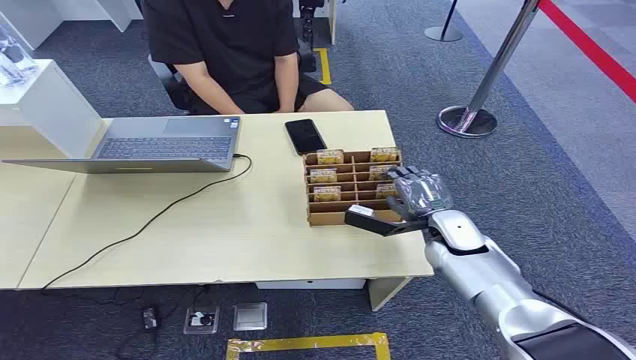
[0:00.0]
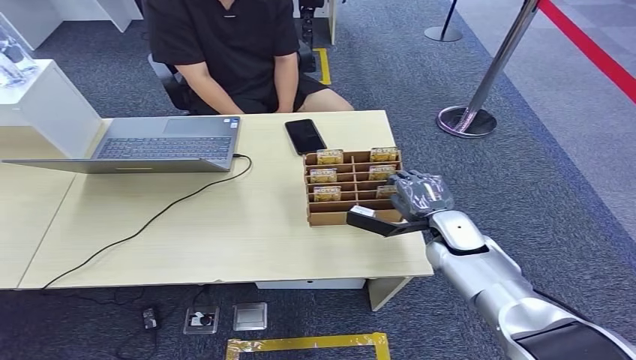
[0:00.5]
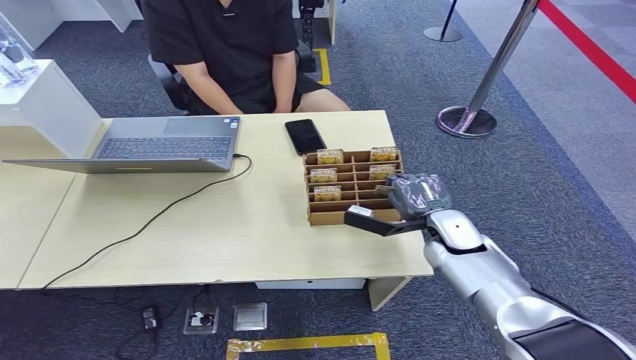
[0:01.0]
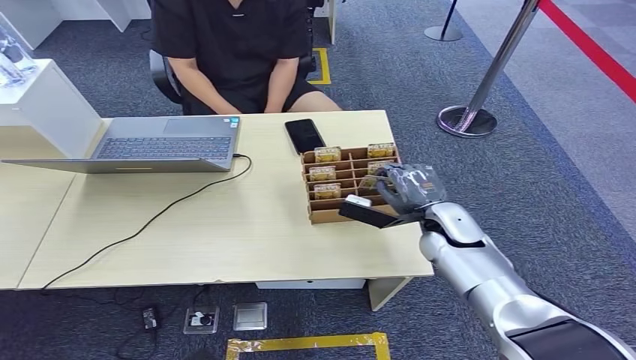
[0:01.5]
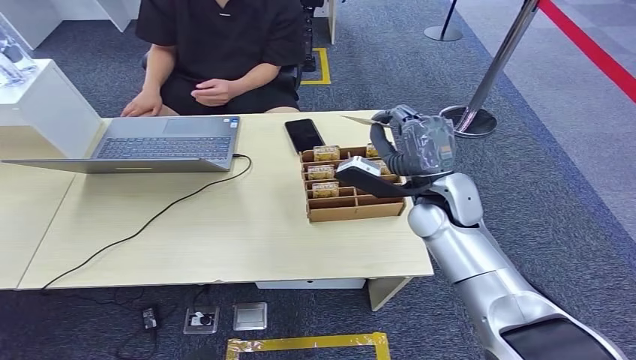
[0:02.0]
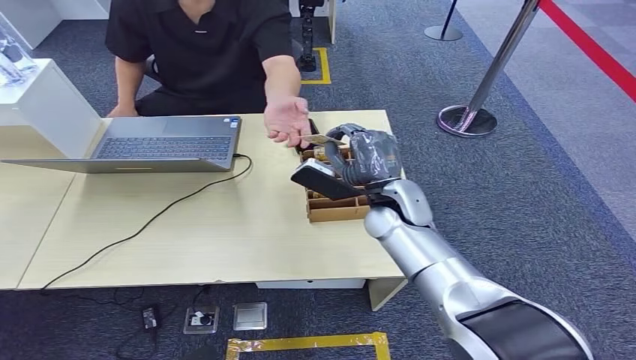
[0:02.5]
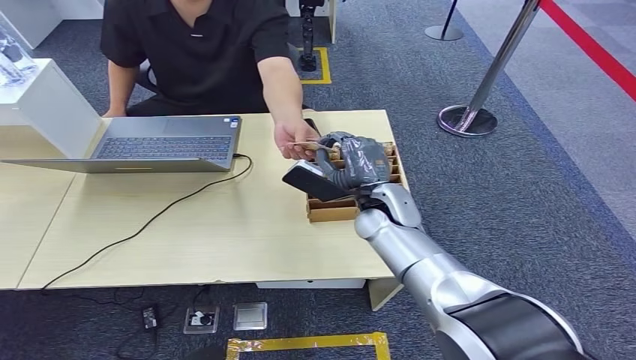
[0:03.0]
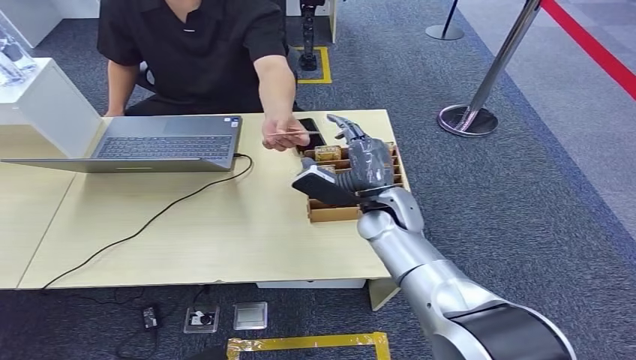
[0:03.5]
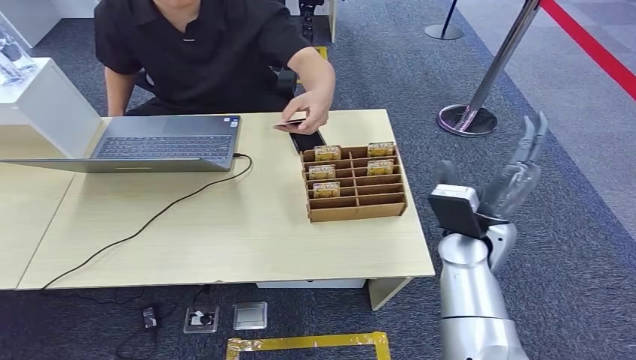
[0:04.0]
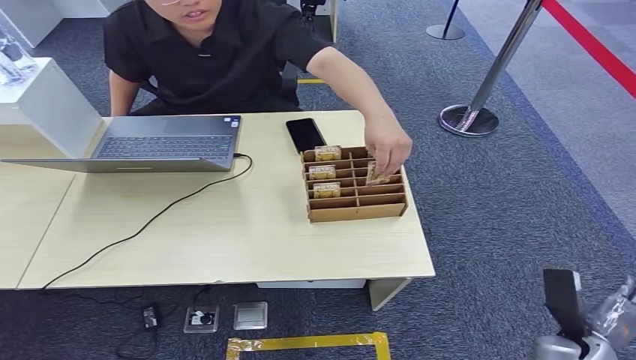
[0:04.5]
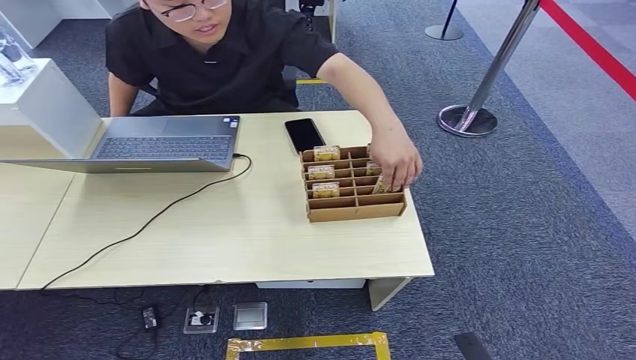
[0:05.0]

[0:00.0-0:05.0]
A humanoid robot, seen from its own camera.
Step, 0:00.0 to 0:02.0: Pick up the key card from the card box.
Step, 0:03.5 to 0:05.0: Hand the key card to the target.
0:02.5 to 0:05.0: The right hand moves backward, downward and to the right, some 50 cm.
